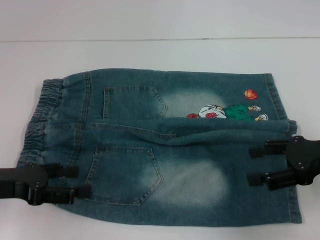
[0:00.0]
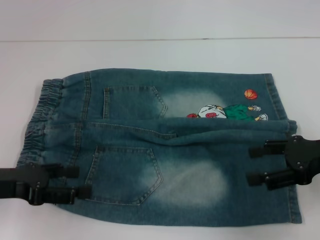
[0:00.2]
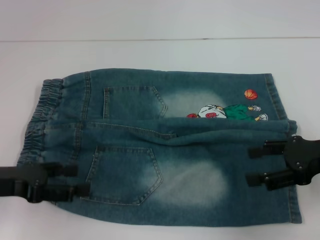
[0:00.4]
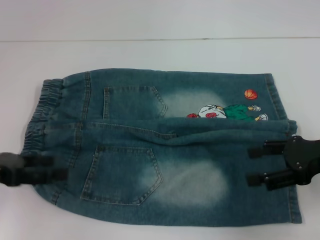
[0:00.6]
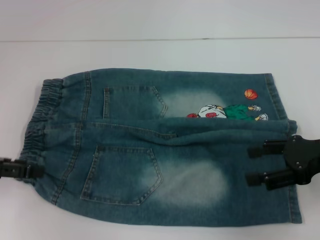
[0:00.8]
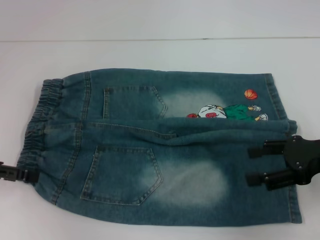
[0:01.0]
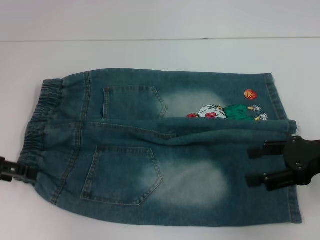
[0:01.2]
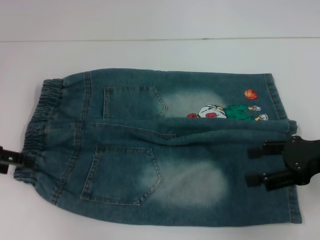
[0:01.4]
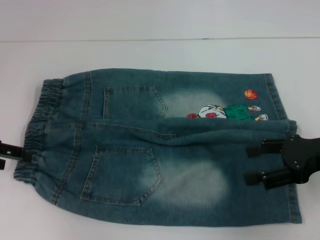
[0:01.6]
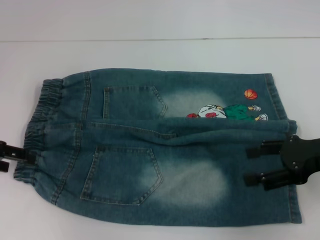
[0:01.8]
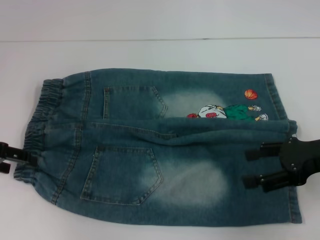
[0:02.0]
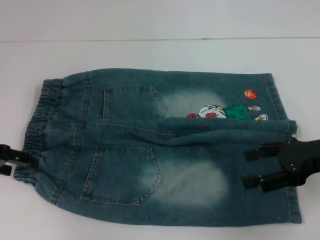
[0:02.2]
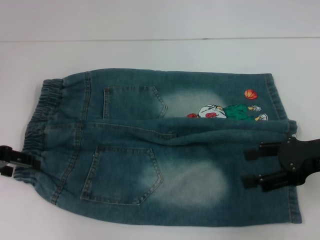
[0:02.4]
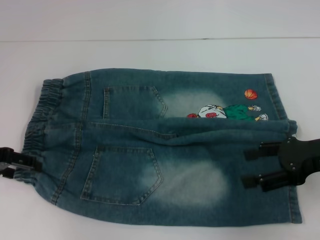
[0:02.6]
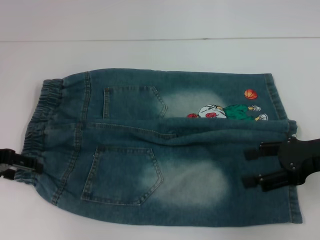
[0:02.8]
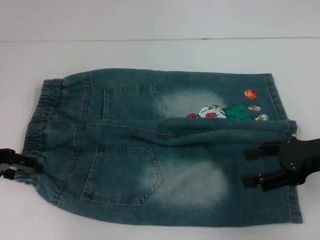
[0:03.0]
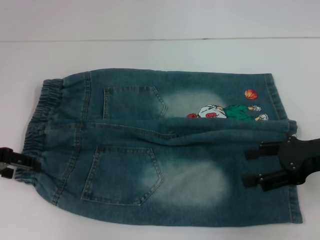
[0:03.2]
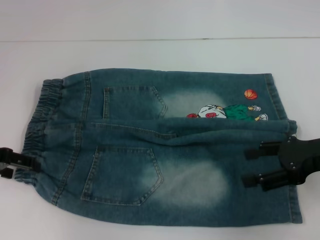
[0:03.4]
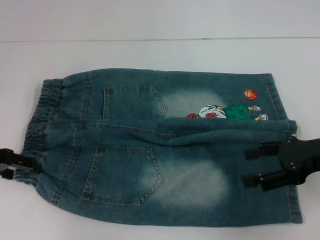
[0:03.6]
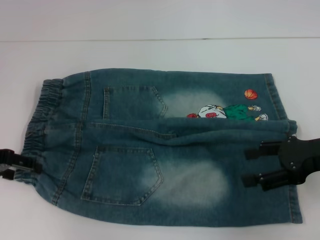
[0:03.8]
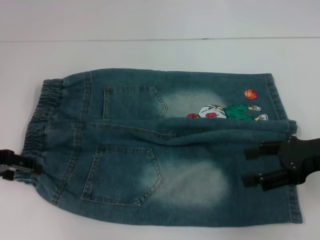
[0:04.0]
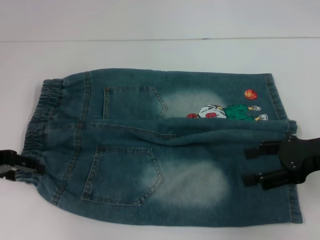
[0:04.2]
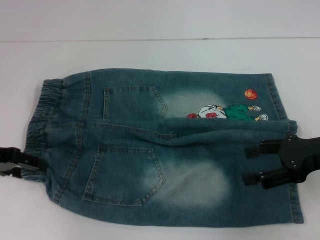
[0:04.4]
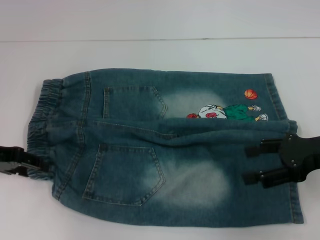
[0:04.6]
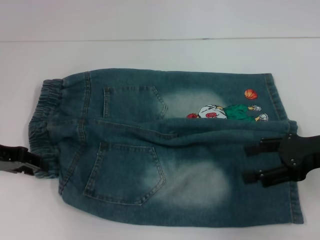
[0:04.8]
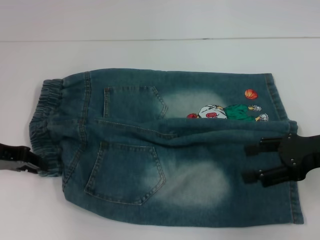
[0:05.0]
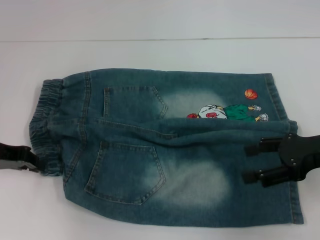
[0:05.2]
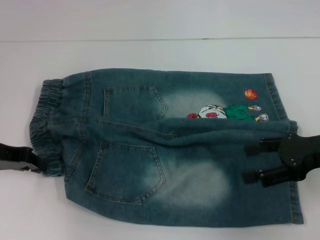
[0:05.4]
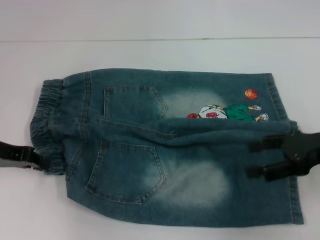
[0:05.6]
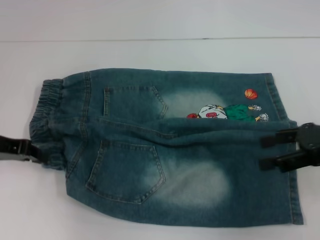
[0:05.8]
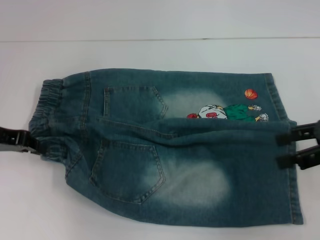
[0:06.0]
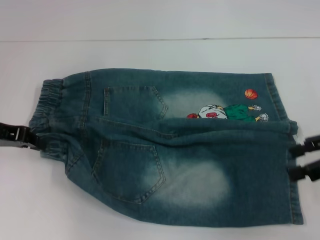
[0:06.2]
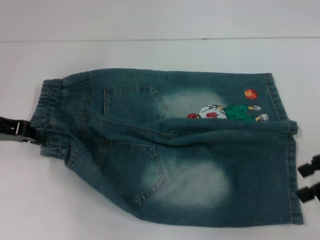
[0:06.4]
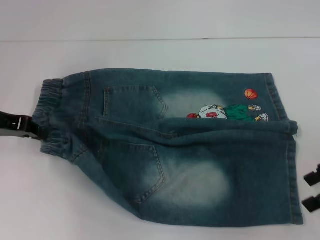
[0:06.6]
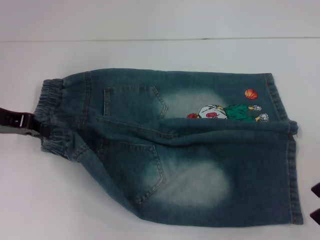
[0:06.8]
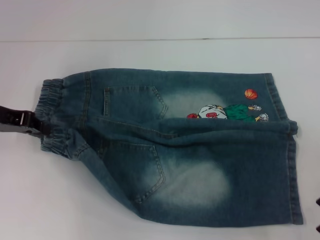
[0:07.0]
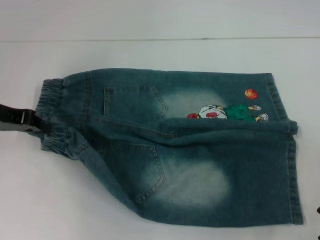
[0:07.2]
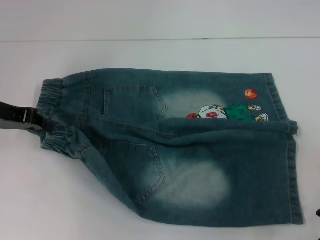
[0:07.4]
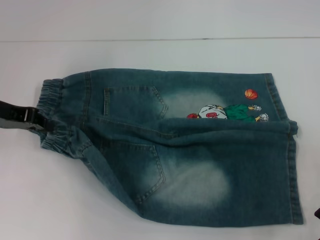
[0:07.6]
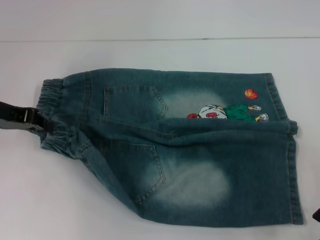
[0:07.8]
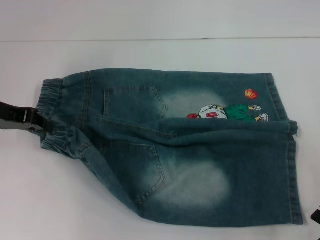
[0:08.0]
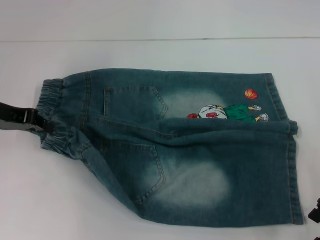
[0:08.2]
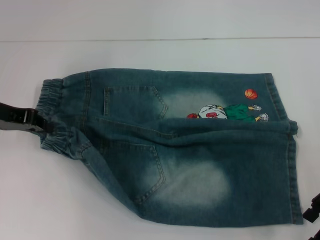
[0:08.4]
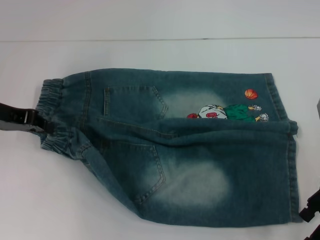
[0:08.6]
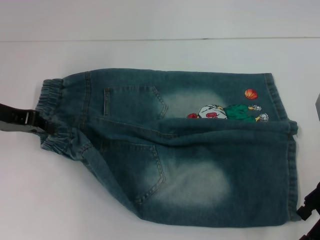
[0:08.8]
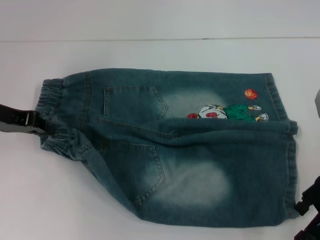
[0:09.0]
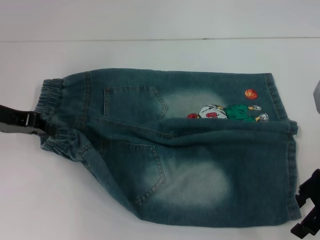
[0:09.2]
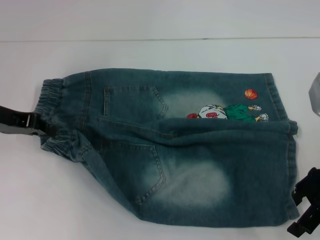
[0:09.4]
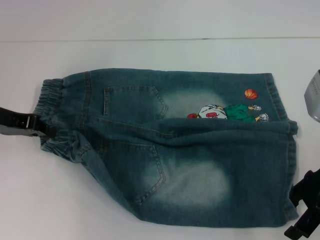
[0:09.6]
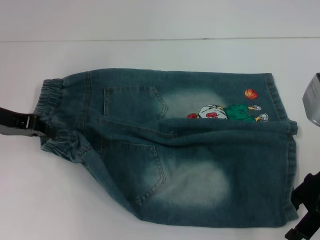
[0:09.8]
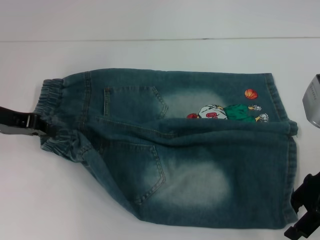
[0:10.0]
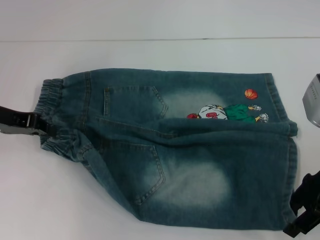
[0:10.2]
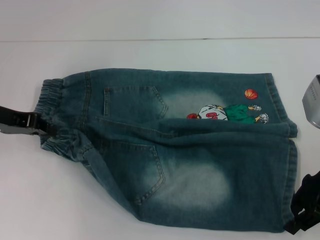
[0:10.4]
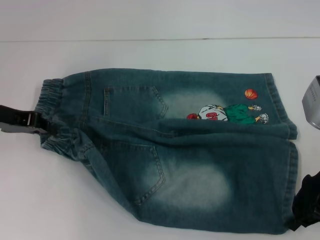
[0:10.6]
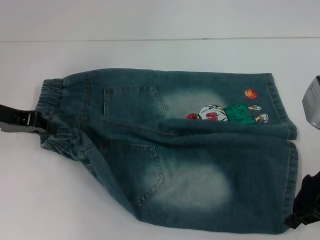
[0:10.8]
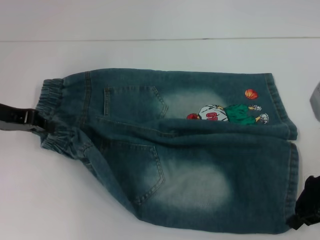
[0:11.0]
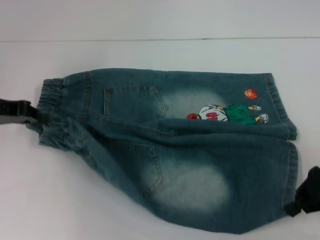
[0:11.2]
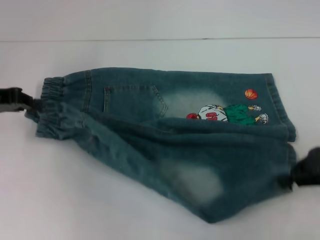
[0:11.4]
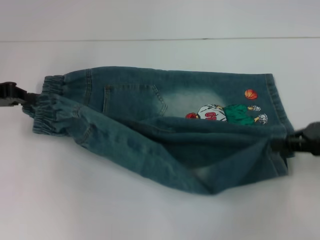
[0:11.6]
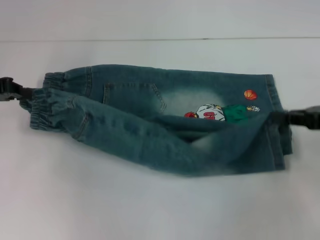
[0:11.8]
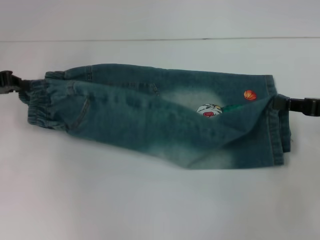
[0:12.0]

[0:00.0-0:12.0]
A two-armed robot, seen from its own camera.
Step, 0:00.0 to 0:05.4: Hold the lower left waistband with your left hand.
Step, 0:05.6 to 0:10.8: Grab the lower right pant leg with your right hand.
0:00.0 to 0:01.6: The left gripper heads forward and to the left, covering roughly 10 cm.
0:01.6 to 0:03.0: The grippers stay close to where they were, moving slightly.
0:03.0 to 0:04.4: The two grippers keep their place.
0:04.4 to 0:06.0: The right gripper moves about 5 cm; the left gripper closes its fingers.
0:07.6 to 0:10.4: The grippers make only small movements.
0:10.4 to 0:12.0: The right gripper goes some 10 cm to the right, and closes its fingers.

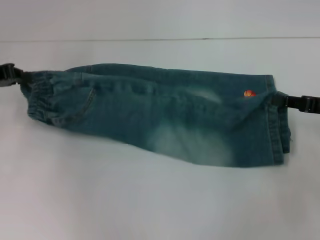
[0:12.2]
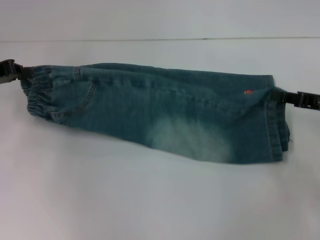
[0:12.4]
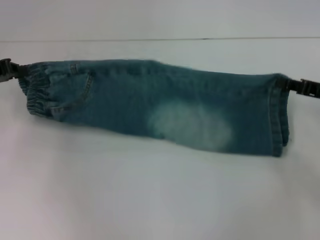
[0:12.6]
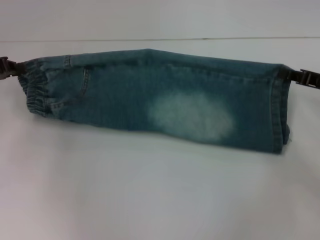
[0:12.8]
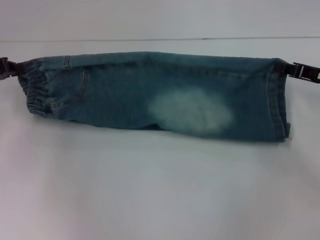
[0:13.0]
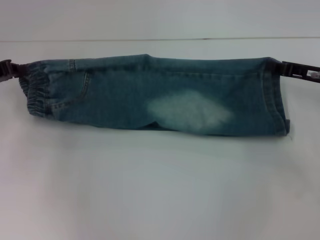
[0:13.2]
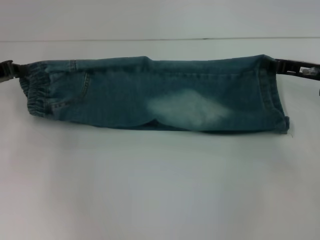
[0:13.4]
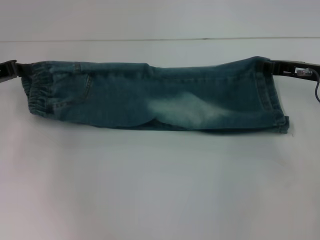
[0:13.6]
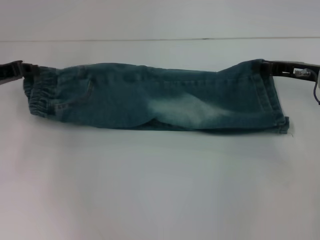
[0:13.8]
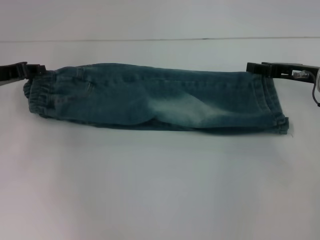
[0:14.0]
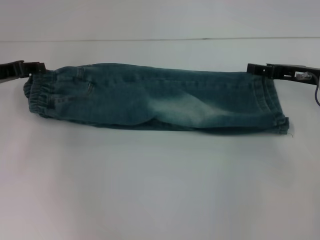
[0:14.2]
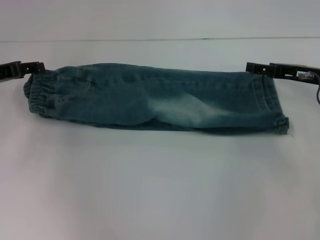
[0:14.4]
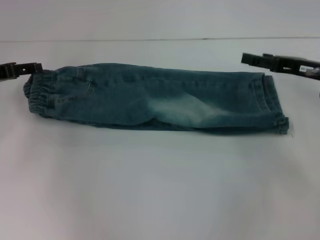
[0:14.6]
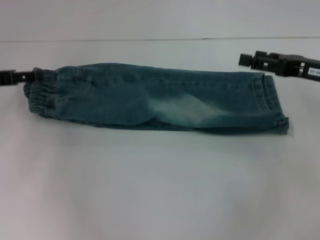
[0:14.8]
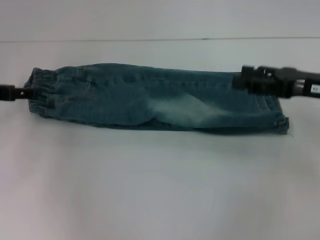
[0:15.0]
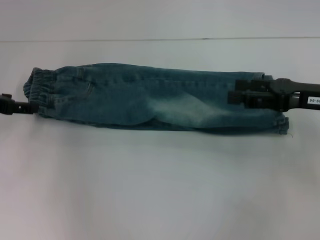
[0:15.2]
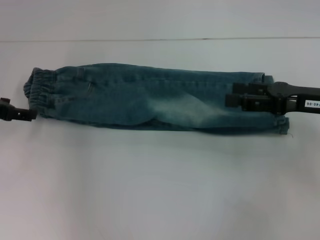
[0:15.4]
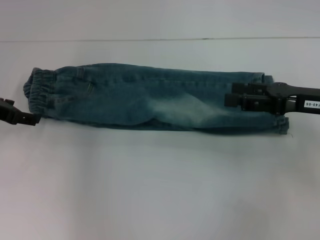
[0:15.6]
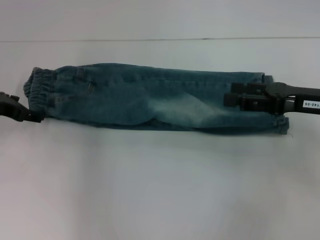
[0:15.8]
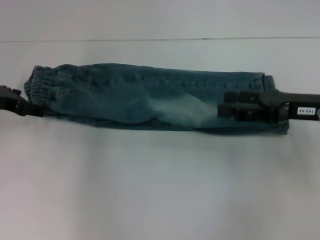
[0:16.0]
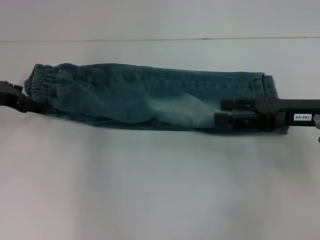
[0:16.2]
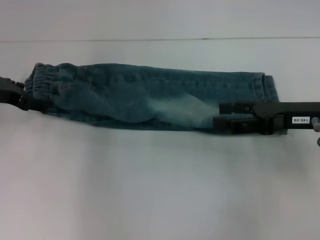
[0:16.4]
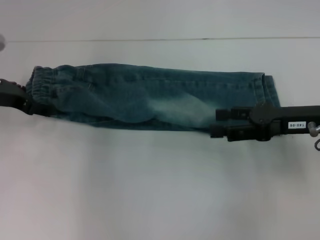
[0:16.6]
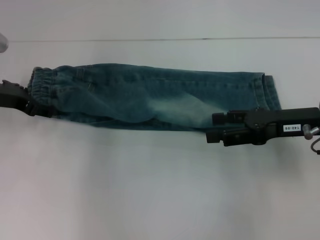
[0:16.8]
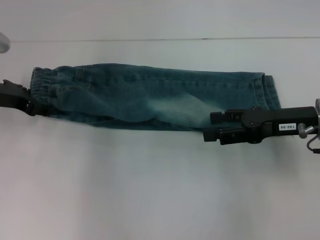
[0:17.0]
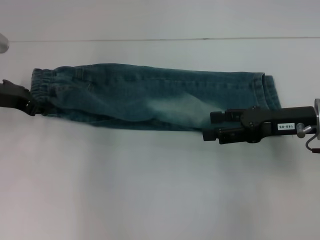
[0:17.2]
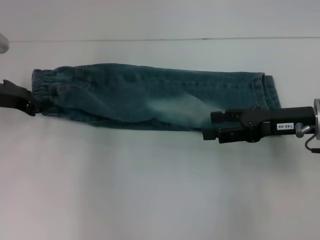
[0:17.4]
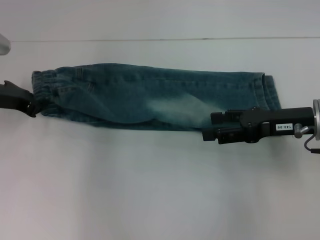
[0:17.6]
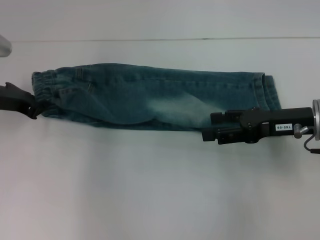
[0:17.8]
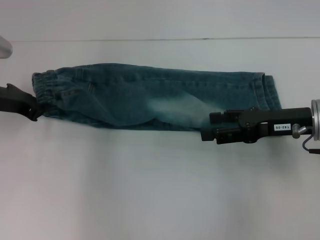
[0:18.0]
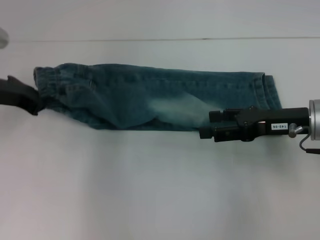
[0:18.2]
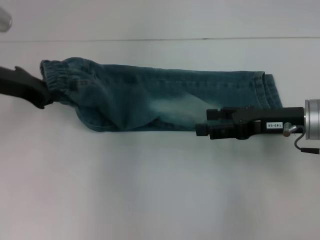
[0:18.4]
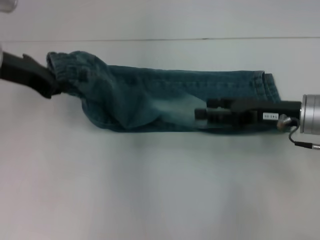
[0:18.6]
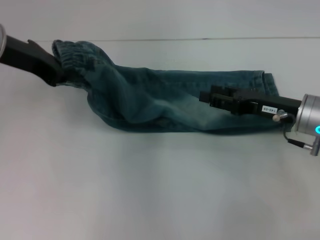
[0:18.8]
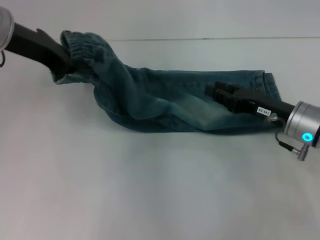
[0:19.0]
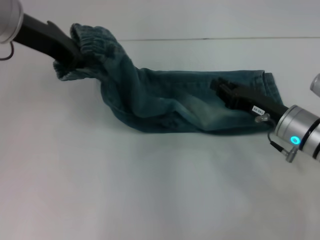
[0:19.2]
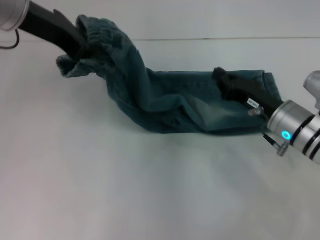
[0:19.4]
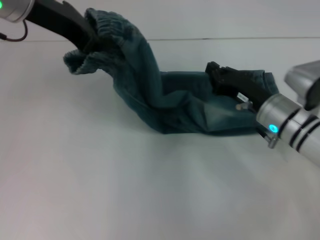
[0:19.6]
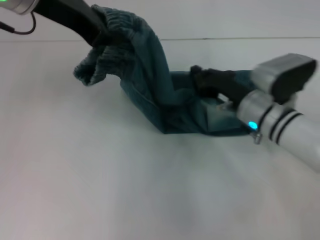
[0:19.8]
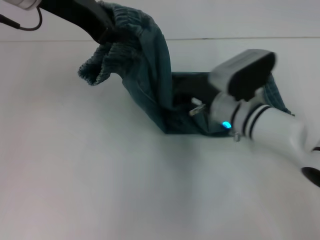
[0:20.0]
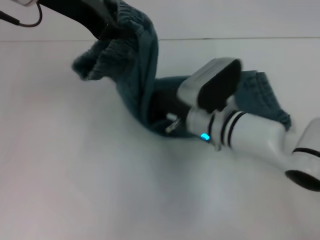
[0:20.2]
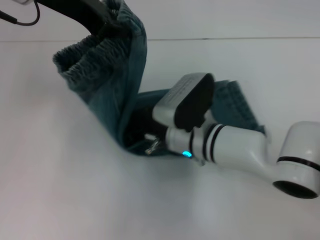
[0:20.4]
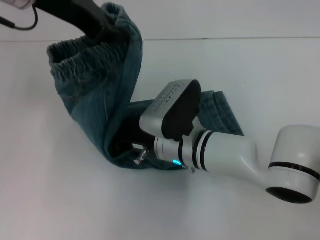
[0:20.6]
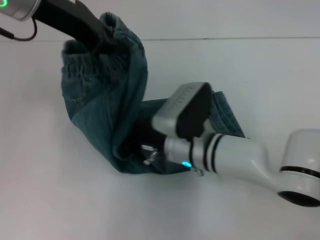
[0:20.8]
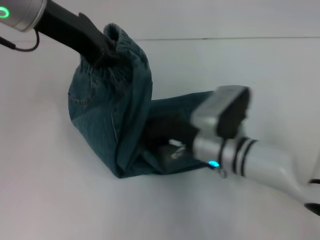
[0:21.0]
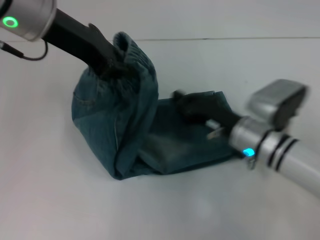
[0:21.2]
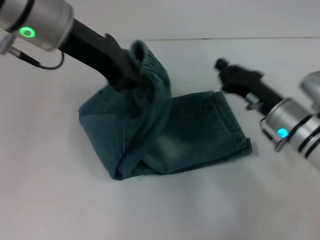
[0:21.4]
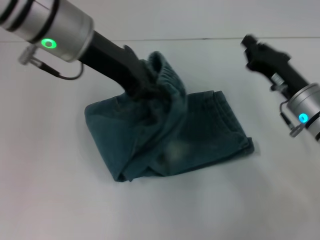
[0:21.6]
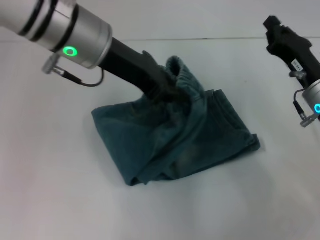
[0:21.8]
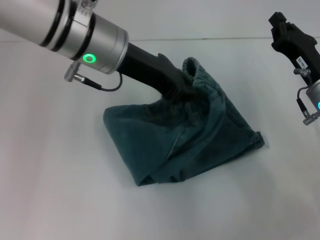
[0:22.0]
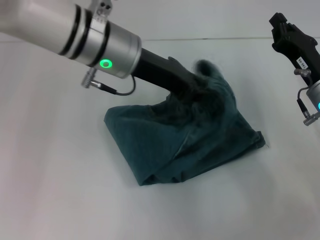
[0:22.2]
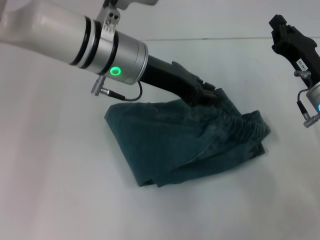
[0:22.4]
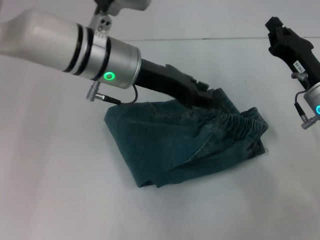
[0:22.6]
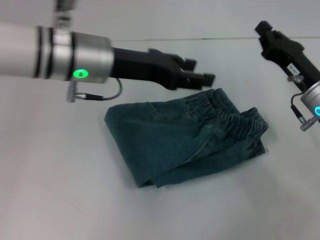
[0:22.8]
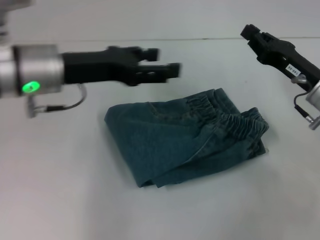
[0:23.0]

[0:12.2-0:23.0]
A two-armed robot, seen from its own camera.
Step, 0:12.2 to 0:14.4: Fold upward with your right hand.
Step, 0:14.6 to 0:17.8: Hold the waistband with your left hand.
Step, 0:18.0 to 0:21.0: Press the middle of the pants with your right hand.
Step, 0:21.2 to 0:22.6: Fold to the right with your left hand.
0:12.2 to 0:13.8: The right gripper is displaced forward by roughly 10 cm.
0:13.8 to 0:15.2: The left gripper opens its fingers, while the right gripper goes roughly 5 cm backward, and opens up.
0:15.2 to 0:16.8: The left gripper ends up some 5 cm from where it was.
0:16.8 to 0:18.4: The left gripper shifts some 5 cm upward, and closes up.
0:18.4 to 0:20.0: The left gripper moves upward and to the right, approximately 15 cm; the right gripper goes about 15 cm to the left and downward, and closes.
0:20.0 to 0:21.4: The right gripper goes approximately 10 cm to the right.
0:21.4 to 0:23.0: The left gripper heads downward, covering some 10 cm, and opens. Meanwhile the right gripper heads to the right, covering about 5 cm.
